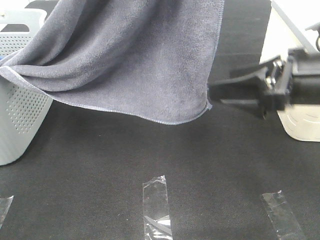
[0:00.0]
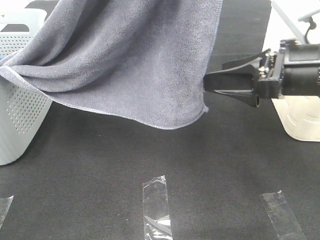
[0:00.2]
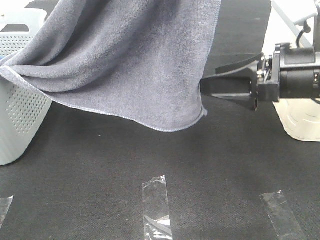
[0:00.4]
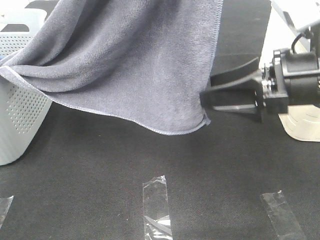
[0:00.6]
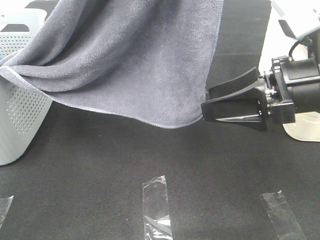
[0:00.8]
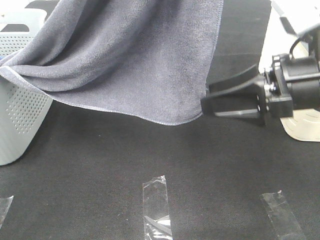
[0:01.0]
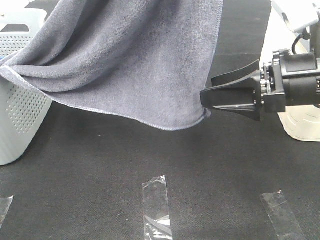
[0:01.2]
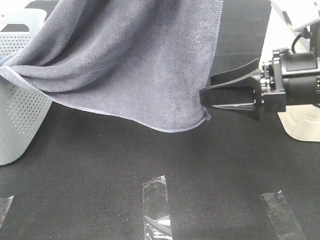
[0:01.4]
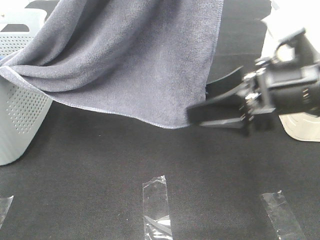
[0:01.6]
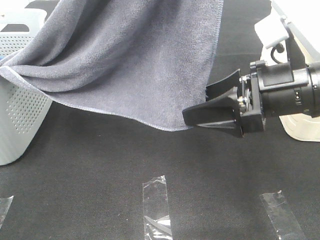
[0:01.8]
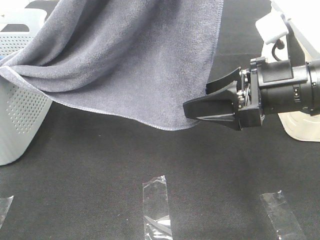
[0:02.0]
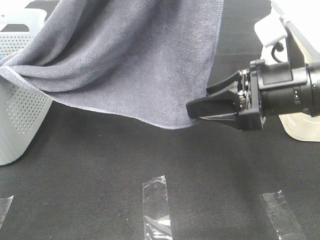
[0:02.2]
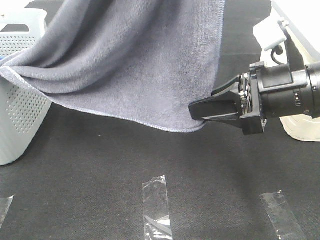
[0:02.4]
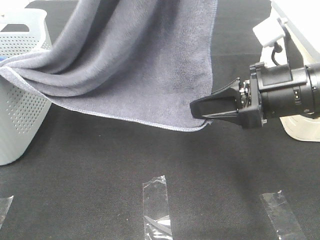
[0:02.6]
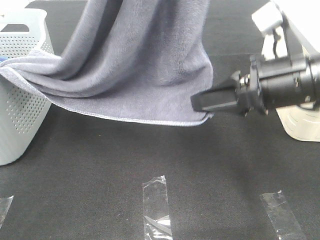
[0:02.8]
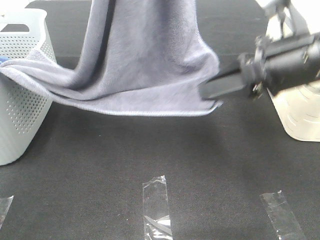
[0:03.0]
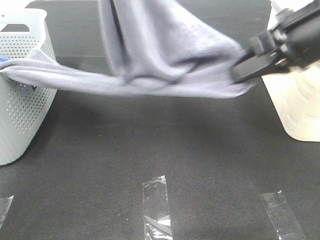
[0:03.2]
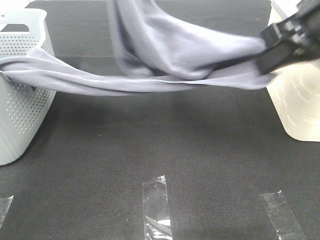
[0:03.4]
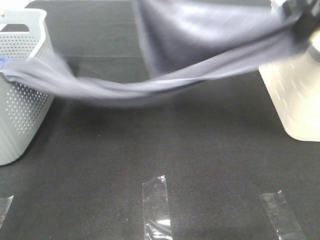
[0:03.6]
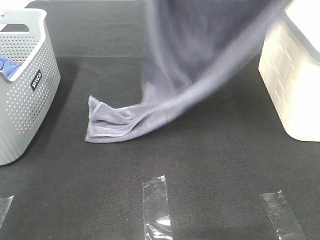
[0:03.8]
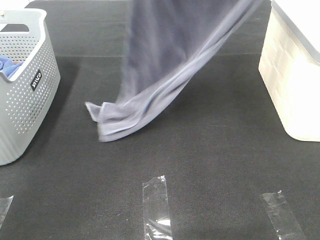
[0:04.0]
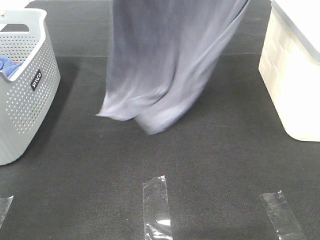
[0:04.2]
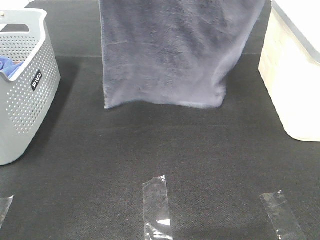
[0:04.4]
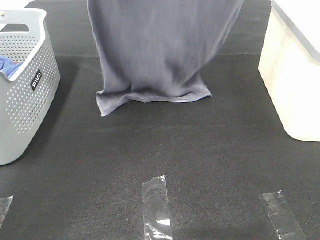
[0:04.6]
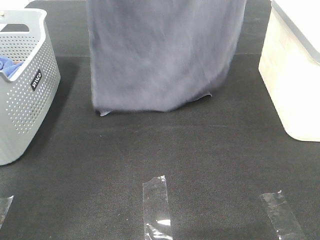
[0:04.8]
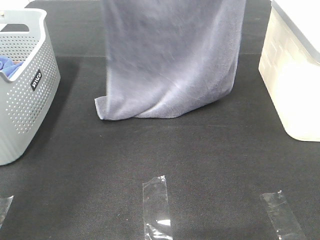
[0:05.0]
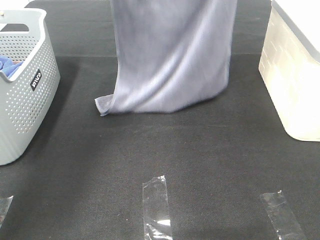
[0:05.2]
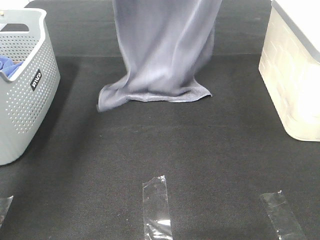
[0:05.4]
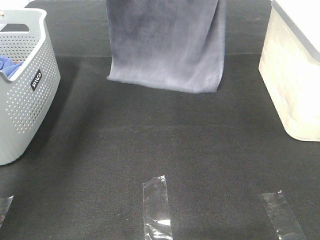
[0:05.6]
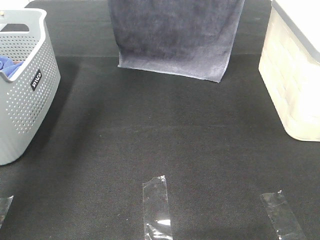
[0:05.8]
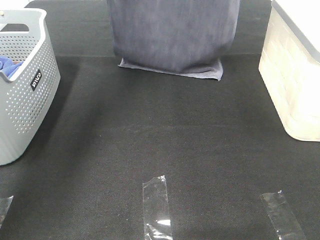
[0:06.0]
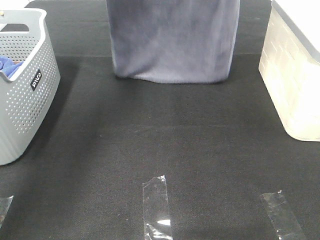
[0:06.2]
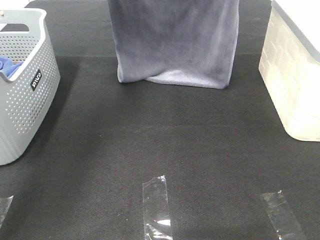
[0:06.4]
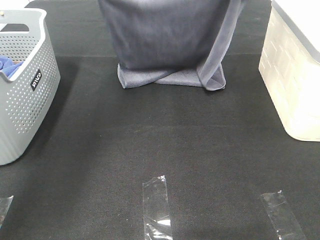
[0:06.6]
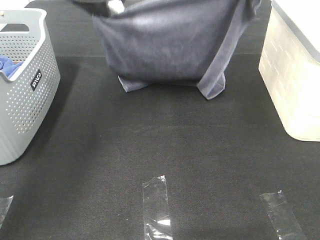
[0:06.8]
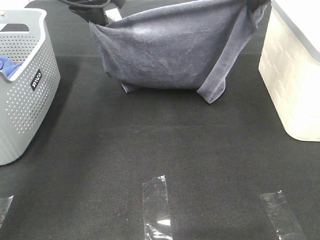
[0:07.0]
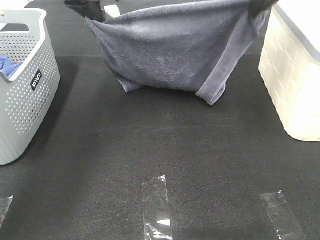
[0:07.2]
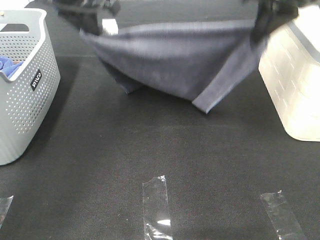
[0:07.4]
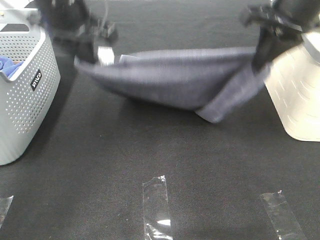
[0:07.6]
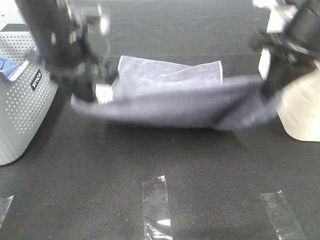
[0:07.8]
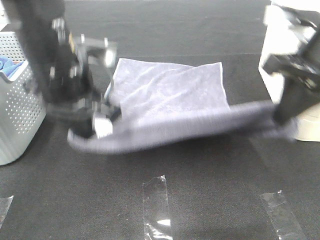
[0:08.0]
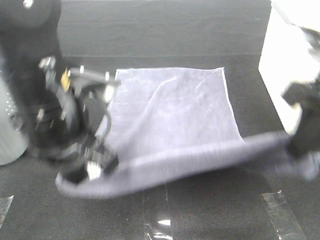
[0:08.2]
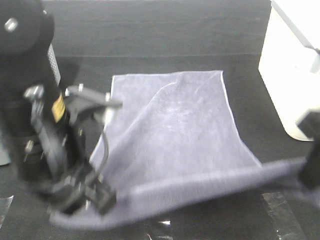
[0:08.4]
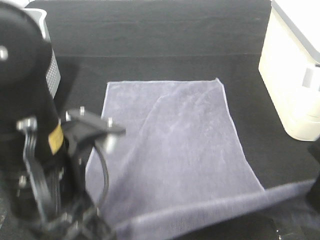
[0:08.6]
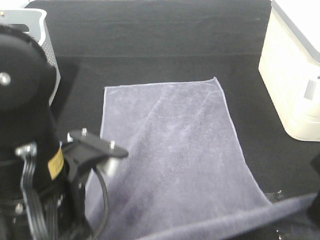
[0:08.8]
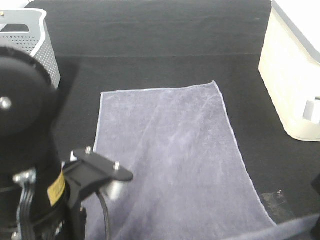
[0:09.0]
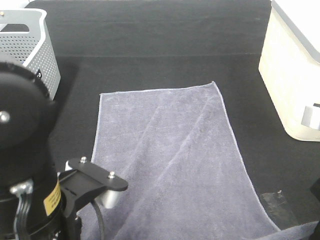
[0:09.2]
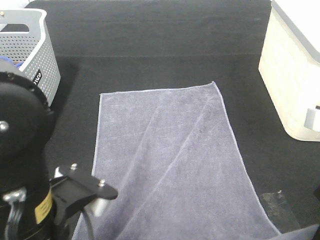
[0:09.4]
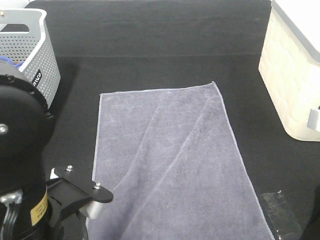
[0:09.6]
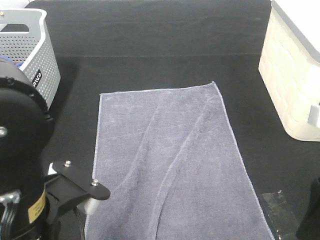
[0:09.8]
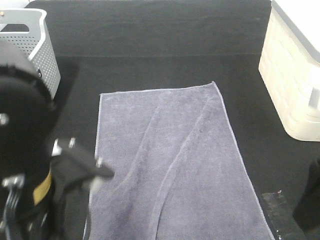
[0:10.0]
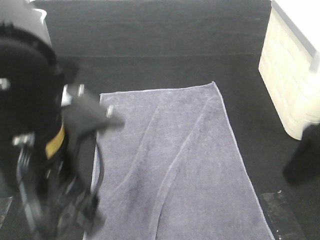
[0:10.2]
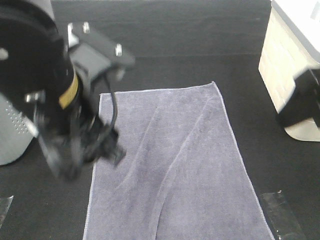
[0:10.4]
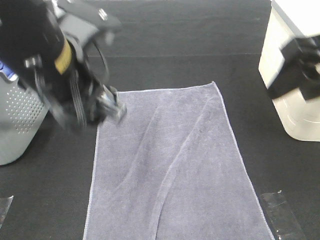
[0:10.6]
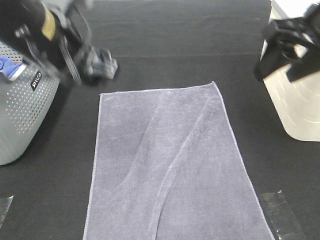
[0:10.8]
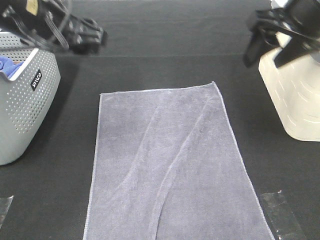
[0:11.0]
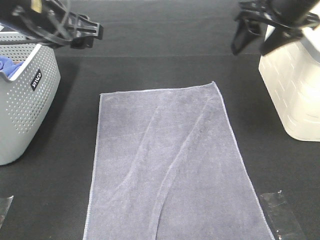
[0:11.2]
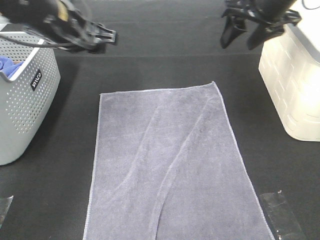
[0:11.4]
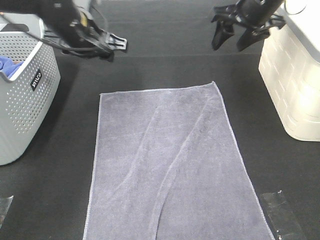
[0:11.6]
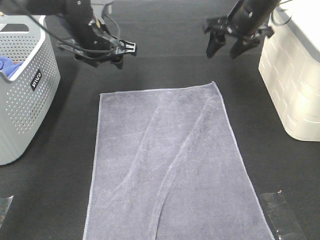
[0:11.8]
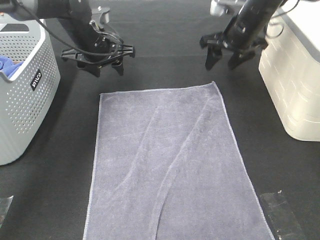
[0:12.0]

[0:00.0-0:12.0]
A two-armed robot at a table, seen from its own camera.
Task of the whole recording: Remove the towel and place it.
Step, 0:01.2 to 0:05.2: Left hand: spread the grey towel flat on the table.
Step, 0:01.2 to 0:05.2: Right hand: spread the grey towel flat on the table.
Step, 0:05.4 to 0:11.6: Left hand:adjust the gray towel.
Step, 0:05.4 to 0:11.6: Right hand:adjust the gray towel.
0:00.0 to 0:01.6: The grippers stay close to where they were, moving slightly.
0:01.6 to 0:03.0: The right gripper ends up about 5 cm from where it was, and closes up.
0:03.0 to 0:04.4: The left gripper moves forward, roughly 5 cm, and goes downward and returns, some 10 cm each way; the right gripper is displaced upward by roughly 25 cm.
0:04.4 to 0:06.0: The grippers both shift forward and downward by some 15 cm.
0:06.0 to 0:07.6: The left gripper goes roughly 20 cm backward and downward. Meanwhile the right gripper heads downward and backward, covering some 20 cm.
0:07.6 to 0:09.0: Both grippers travel together backward, roughly 20 cm.
0:09.0 to 0:10.4: The two grippers go some 10 cm forward and upward. The left gripper opens up. The right gripper opens.
0:10.4 to 0:12.0: The grippers both shift forward by about 30 cm.

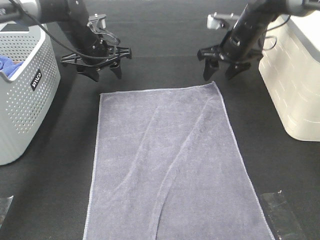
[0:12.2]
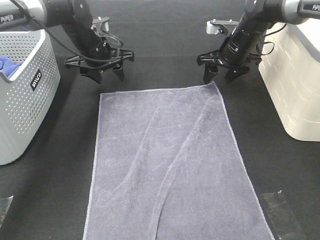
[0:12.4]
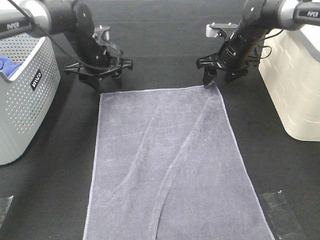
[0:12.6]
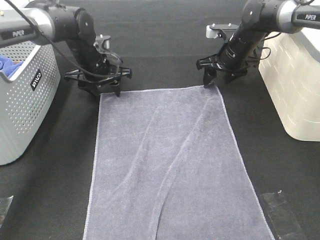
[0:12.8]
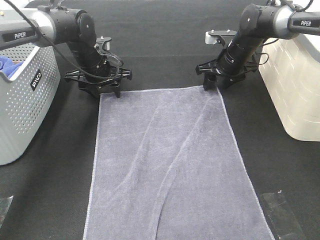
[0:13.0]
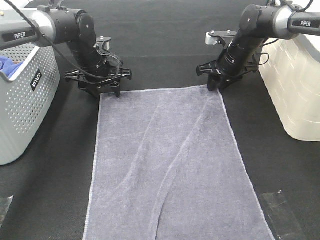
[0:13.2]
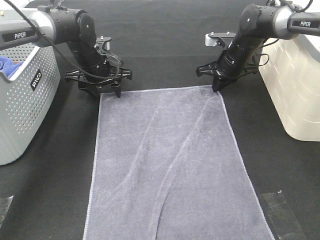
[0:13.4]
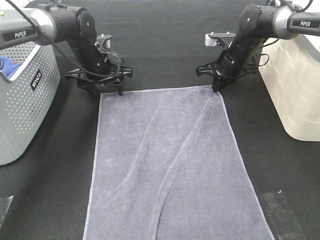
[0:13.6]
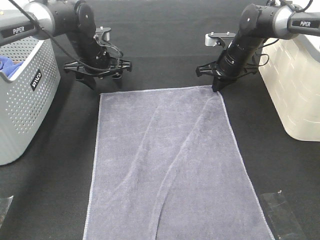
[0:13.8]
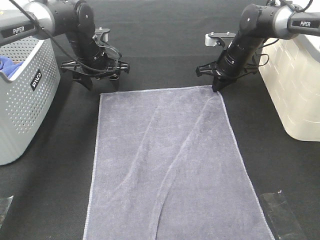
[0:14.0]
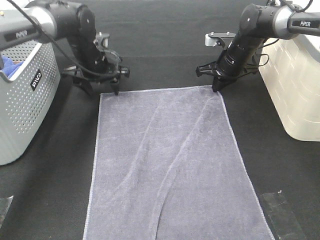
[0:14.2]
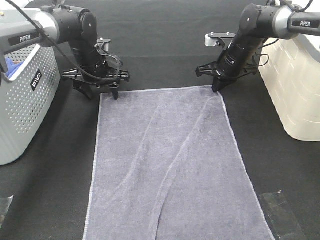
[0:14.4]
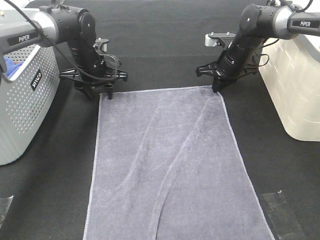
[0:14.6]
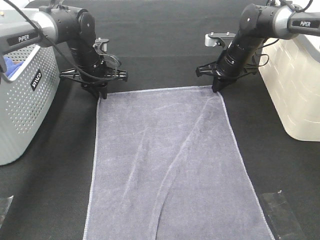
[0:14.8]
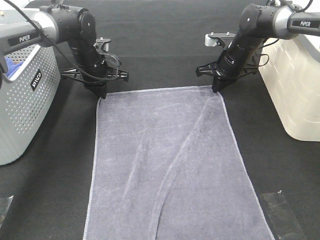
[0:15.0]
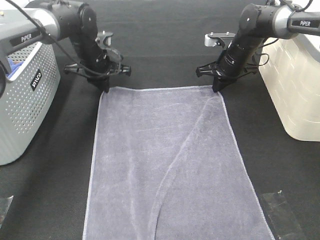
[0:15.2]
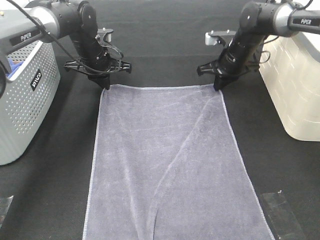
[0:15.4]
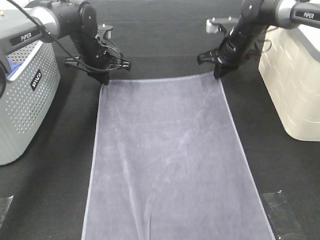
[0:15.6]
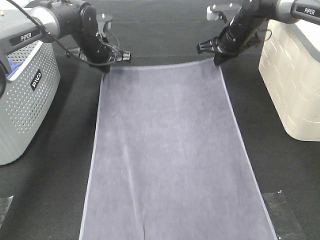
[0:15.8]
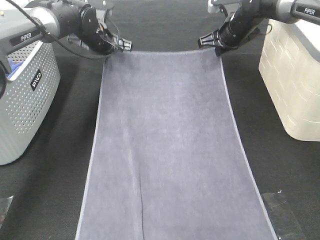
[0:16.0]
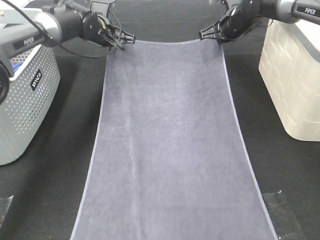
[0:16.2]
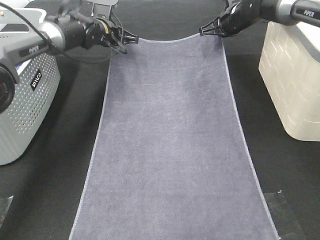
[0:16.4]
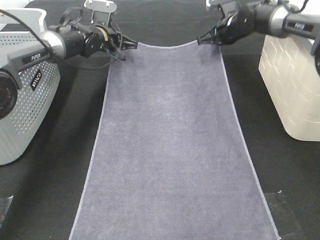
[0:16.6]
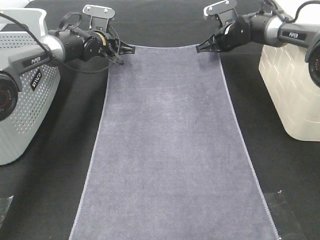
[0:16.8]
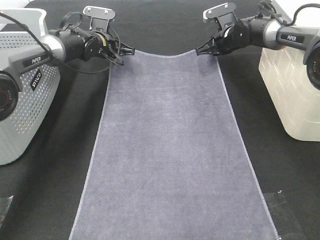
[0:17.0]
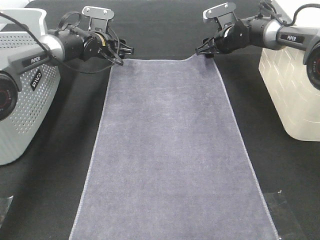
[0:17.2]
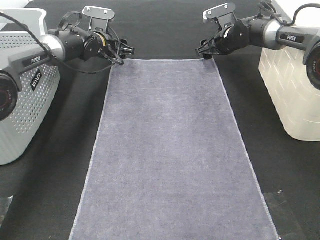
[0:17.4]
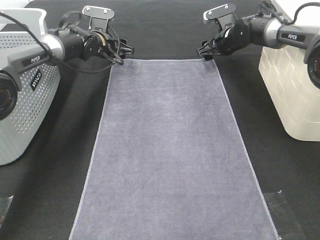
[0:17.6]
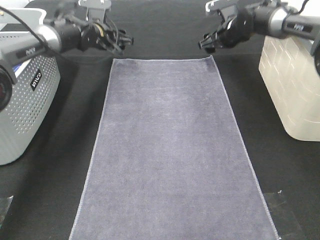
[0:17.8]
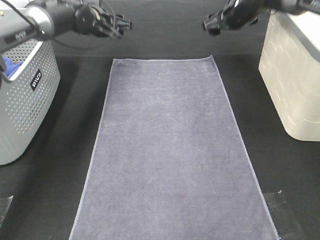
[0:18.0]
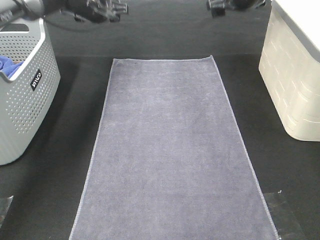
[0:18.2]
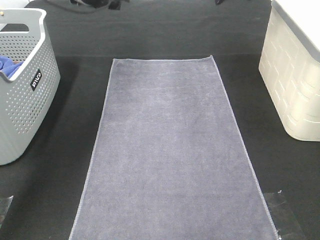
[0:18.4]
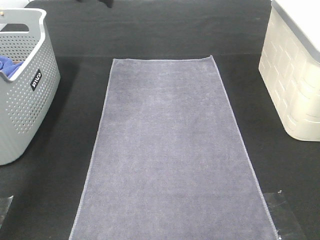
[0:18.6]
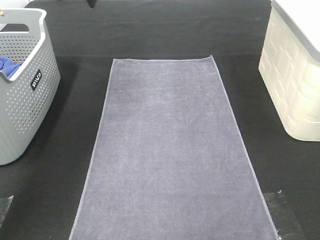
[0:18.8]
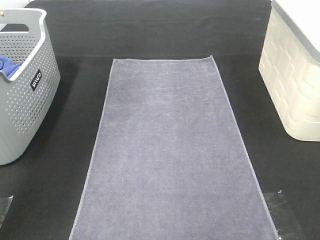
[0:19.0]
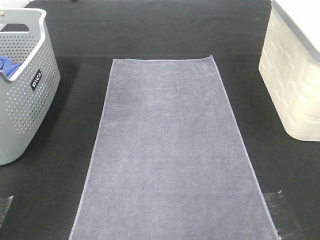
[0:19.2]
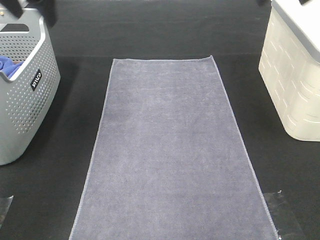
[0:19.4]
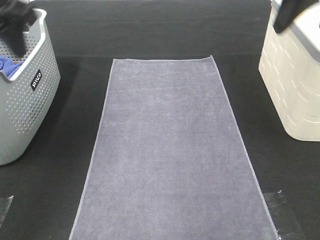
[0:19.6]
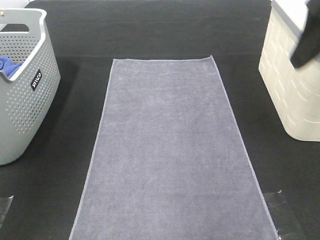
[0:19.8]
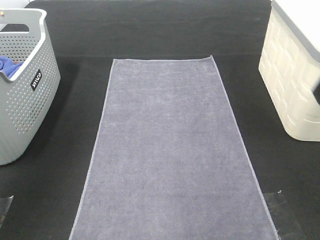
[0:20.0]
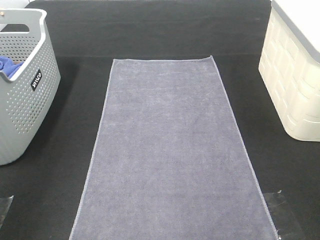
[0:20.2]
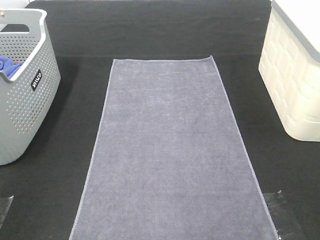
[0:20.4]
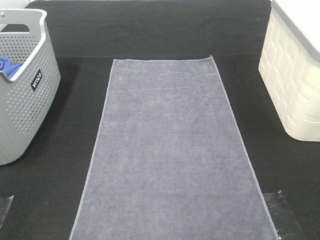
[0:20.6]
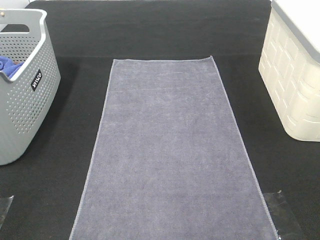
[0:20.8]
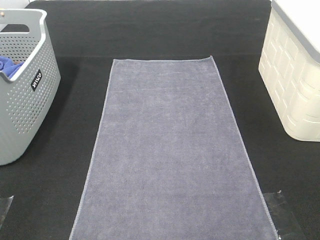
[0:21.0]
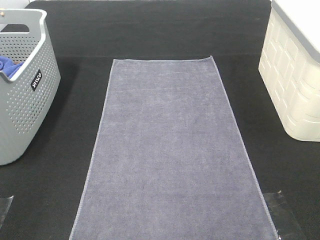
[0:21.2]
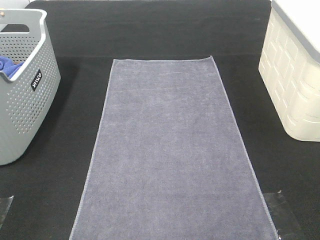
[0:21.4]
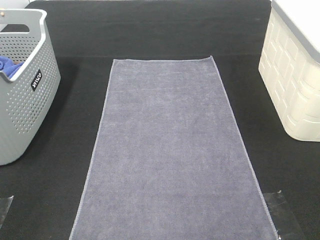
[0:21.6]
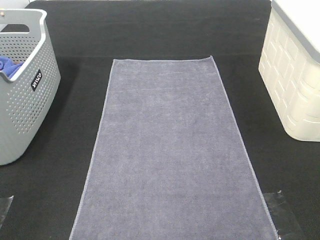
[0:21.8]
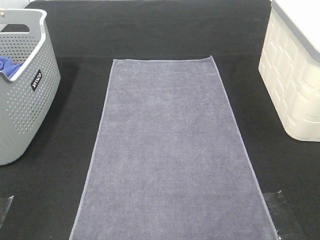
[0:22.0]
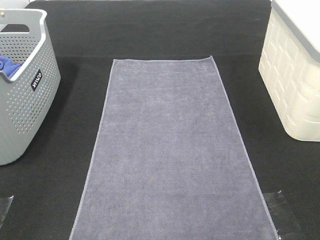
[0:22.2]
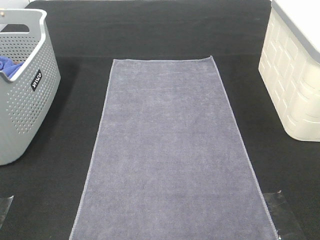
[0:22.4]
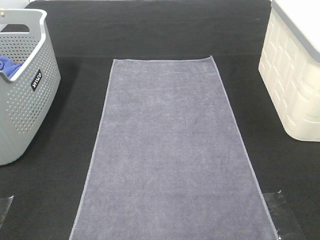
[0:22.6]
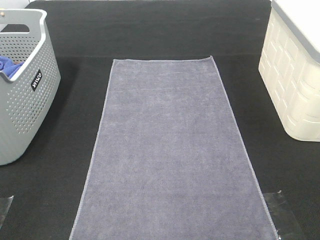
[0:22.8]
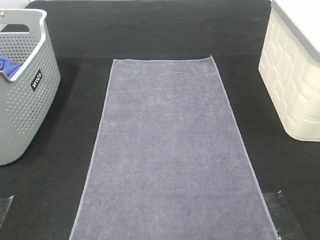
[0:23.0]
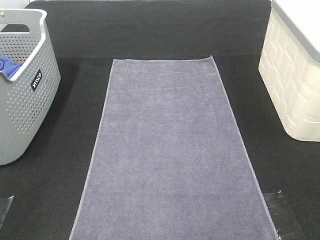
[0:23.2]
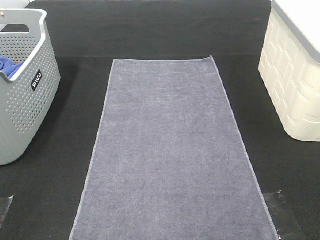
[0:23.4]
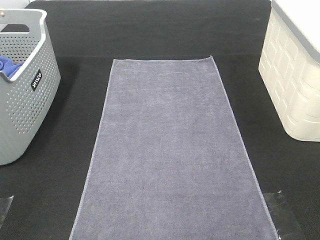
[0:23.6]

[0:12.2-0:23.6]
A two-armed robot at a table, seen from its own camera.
Task of the whole recording: Remove the towel and place it.
0:12.2 to 0:13.6: The right gripper closes up.
0:13.6 to 0:15.0: The left gripper closes up.
0:15.0 to 0:16.4: The right gripper travels upward and forward by some 10 cm. The left gripper travels forward by some 5 cm.
0:16.4 to 0:17.8: The left gripper opens. Meanwhile the right gripper opens its fingers.
0:17.8 to 0:19.4: The left gripper travels backward and upward by roughly 30 cm. The right gripper shifts some 30 cm upward and backward.
0:19.4 to 0:20.8: The two grippers go roughly 35 cm backward.
